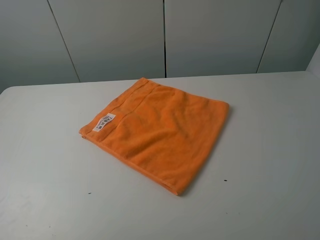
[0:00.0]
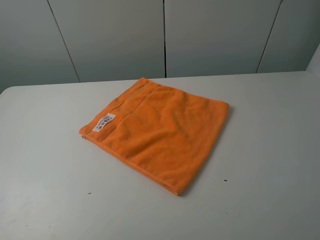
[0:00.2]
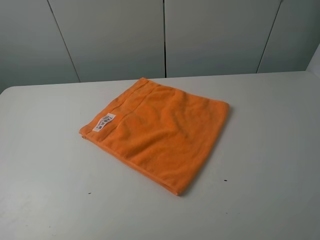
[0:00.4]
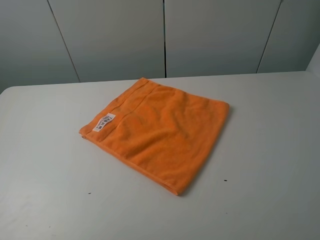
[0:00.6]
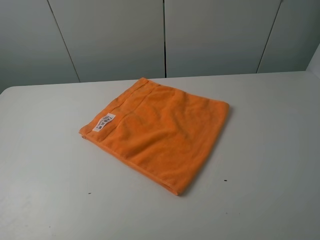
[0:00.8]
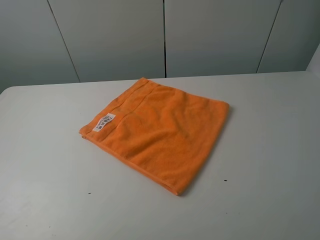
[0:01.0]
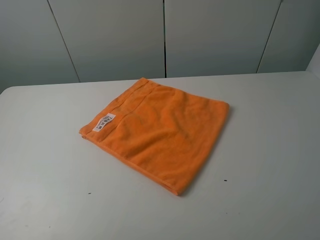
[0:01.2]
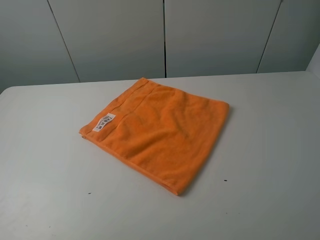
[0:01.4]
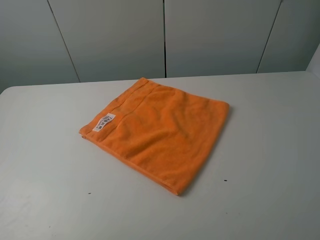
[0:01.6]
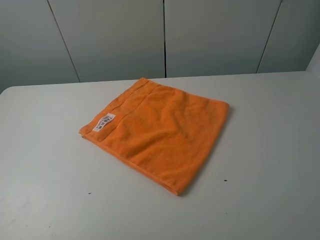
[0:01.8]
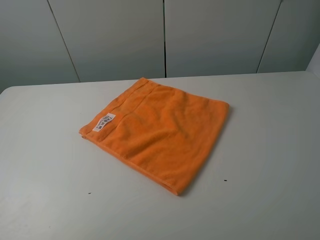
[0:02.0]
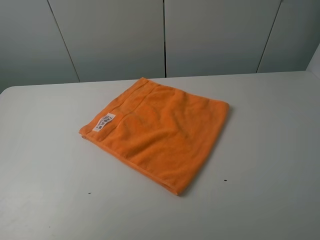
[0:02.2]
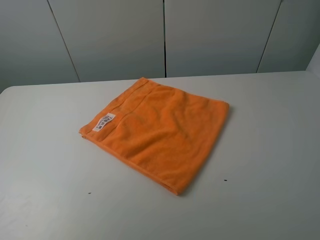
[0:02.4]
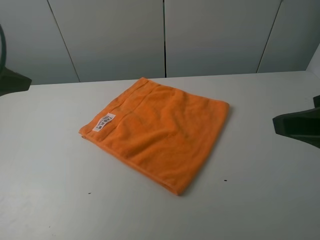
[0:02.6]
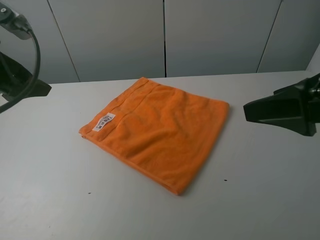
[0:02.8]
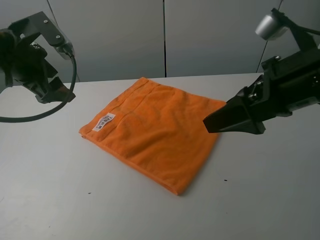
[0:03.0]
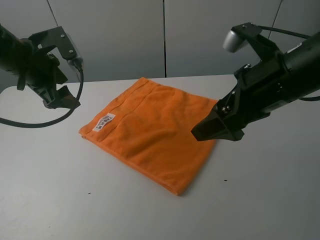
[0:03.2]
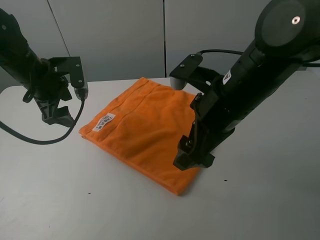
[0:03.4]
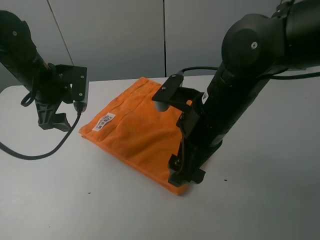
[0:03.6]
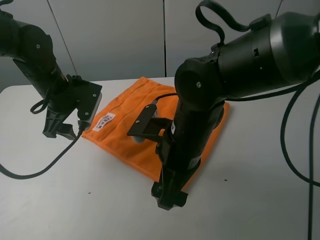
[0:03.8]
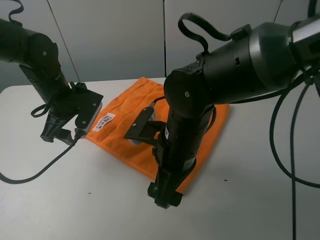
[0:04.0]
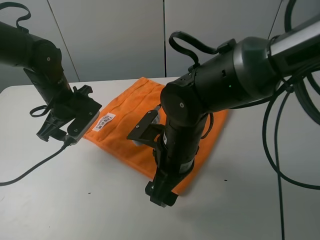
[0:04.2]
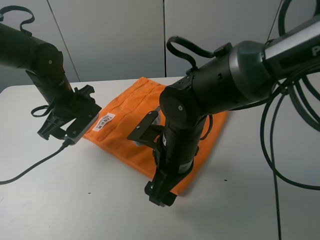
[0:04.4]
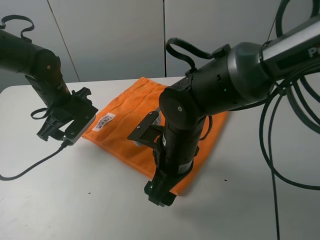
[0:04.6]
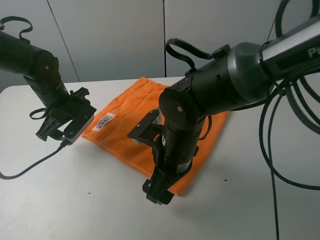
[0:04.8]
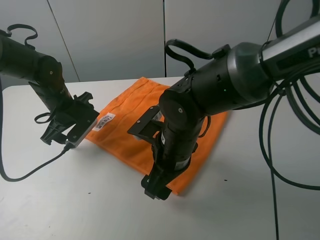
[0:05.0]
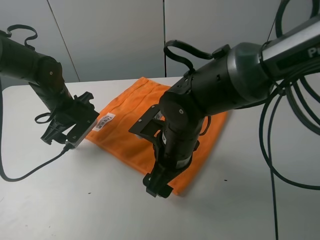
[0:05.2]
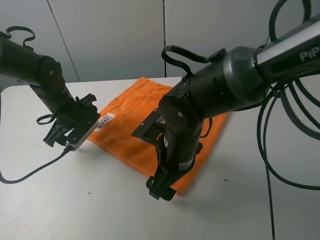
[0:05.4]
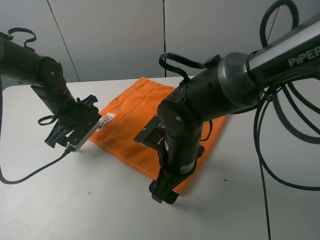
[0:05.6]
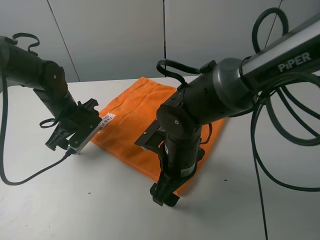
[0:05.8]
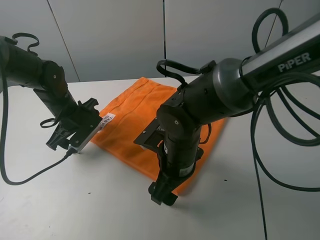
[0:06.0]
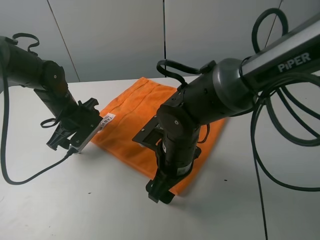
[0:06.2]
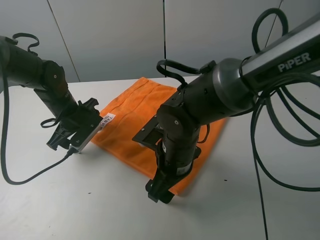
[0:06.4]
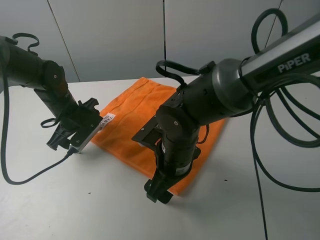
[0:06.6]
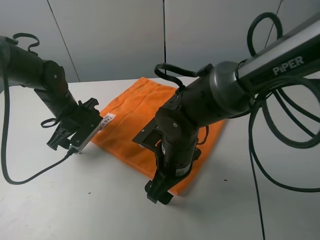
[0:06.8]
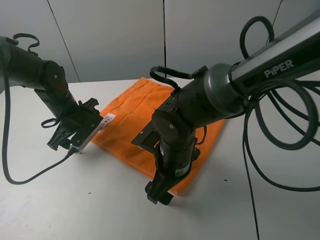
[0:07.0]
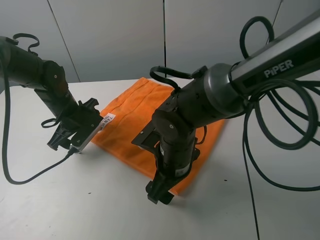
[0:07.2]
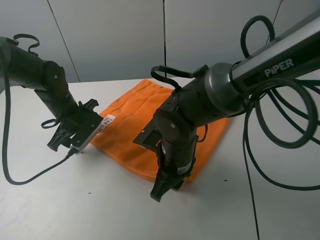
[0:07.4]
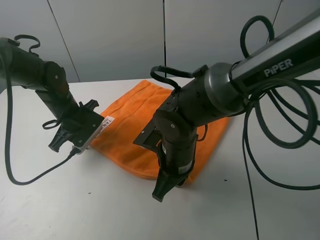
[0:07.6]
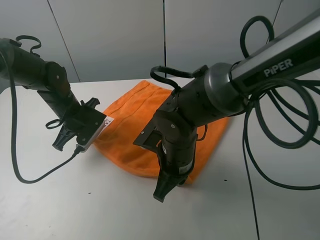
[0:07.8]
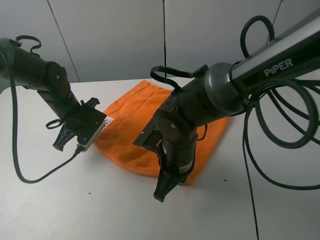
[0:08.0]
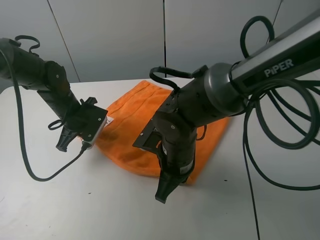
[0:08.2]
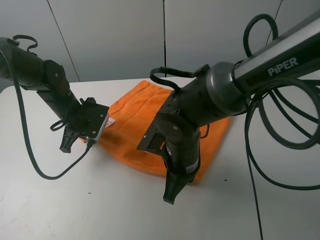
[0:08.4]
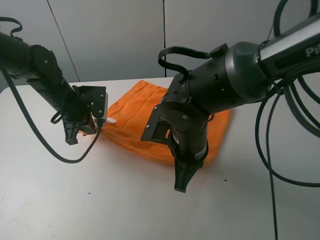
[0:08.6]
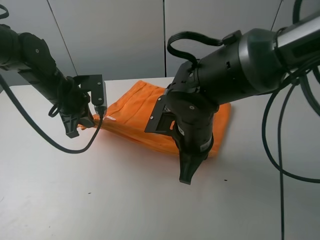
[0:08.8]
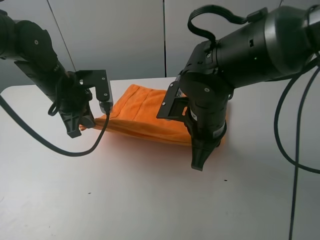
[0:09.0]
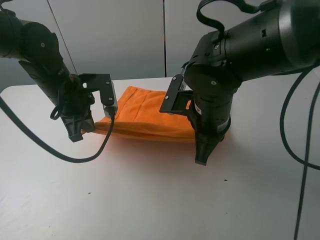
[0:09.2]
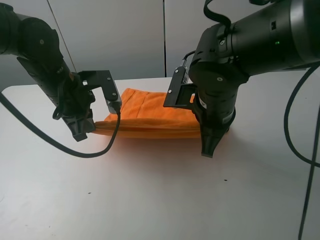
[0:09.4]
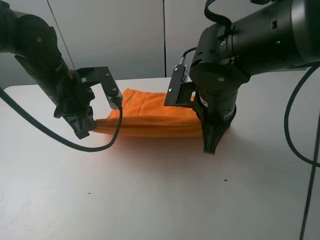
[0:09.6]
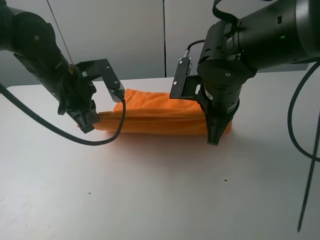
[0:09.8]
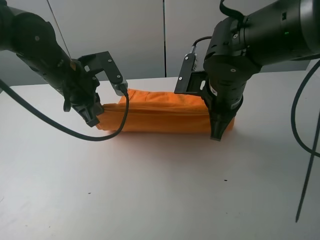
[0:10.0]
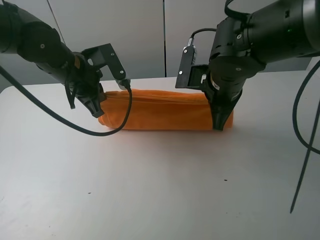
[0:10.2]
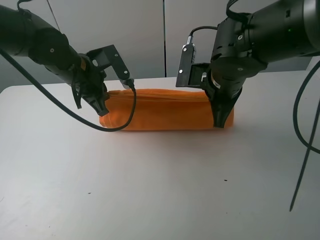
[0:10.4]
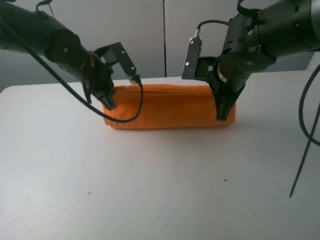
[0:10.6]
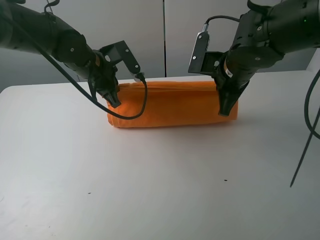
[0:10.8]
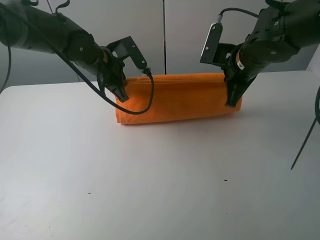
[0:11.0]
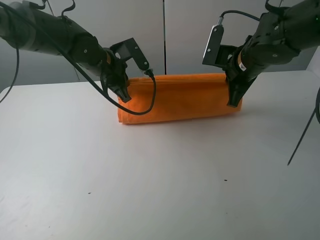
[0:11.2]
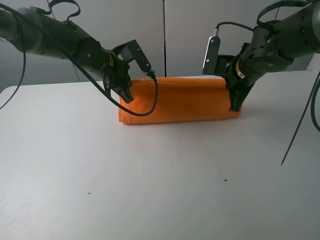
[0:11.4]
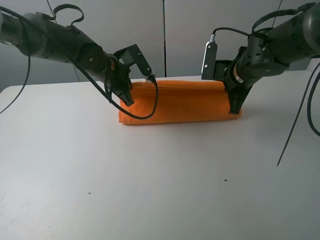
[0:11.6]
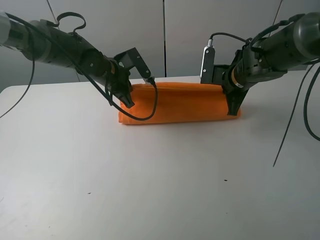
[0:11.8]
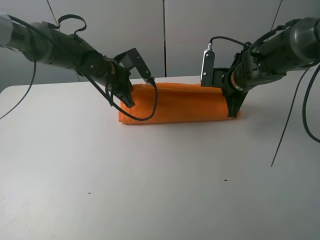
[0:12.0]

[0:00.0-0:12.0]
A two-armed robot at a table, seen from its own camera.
Task of the whole recording: fold the towels on the table.
Step, 0:00.0 to 0:08.8: Grasp the orange towel with the right gripper.
0:00.0 to 0:01.6: Neither gripper changes place.
0:01.6 to 0:03.0: The right gripper moves forward and to the left, approximately 25 cm. The left gripper goes some 30 cm forward.
0:03.0 to 0:04.4: The right gripper goes about 20 cm to the left and downward, while the left gripper is displaced downward by approximately 10 cm.
0:06.0 to 0:07.6: The left gripper closes its fingers. The right gripper closes its fingers.
0:07.6 to 0:09.0: Both grippers move upward, approximately 10 cm.
0:09.0 to 0:10.4: The right gripper heads forward, covering some 5 cm.
0:10.4 to 0:12.0: The left gripper shifts approximately 10 cm forward and downward. The right gripper shifts approximately 15 cm forward, to the right and downward.

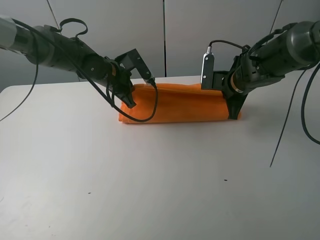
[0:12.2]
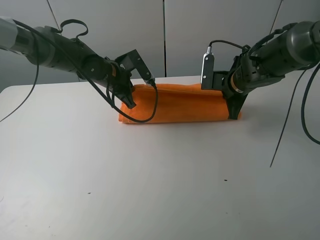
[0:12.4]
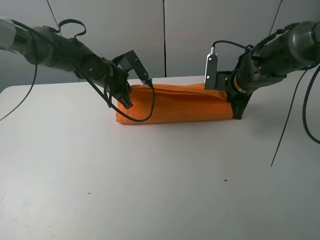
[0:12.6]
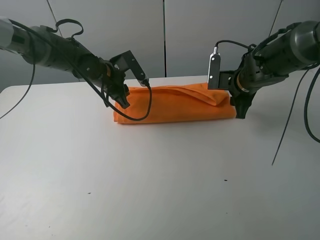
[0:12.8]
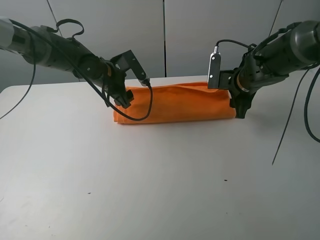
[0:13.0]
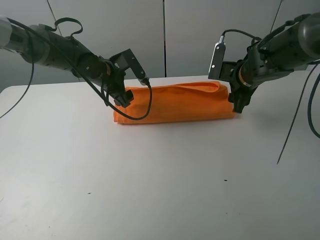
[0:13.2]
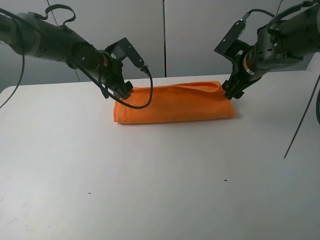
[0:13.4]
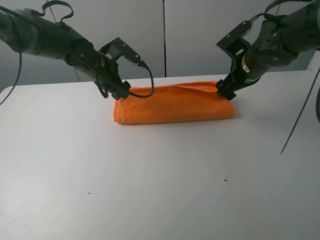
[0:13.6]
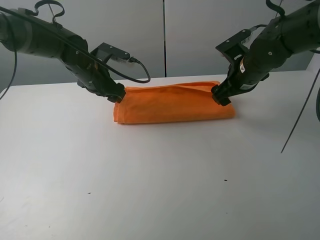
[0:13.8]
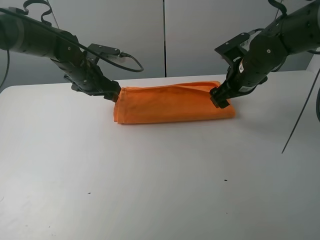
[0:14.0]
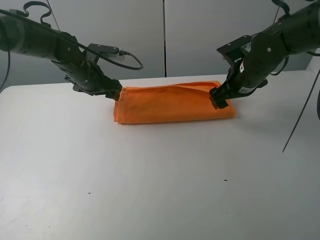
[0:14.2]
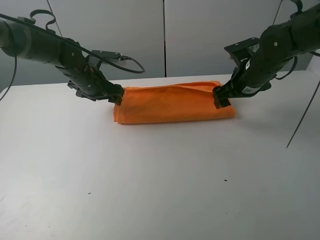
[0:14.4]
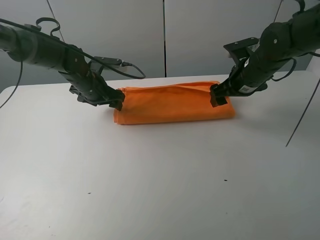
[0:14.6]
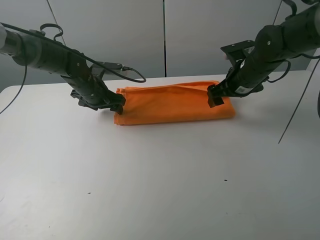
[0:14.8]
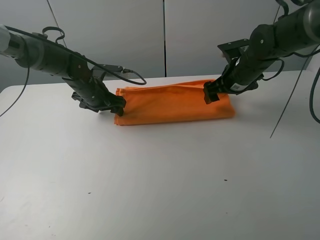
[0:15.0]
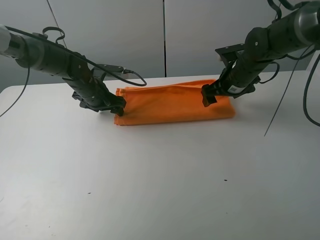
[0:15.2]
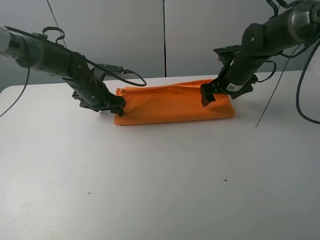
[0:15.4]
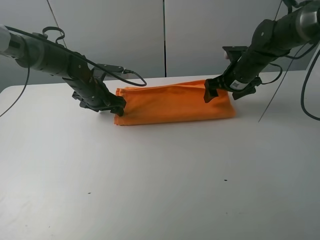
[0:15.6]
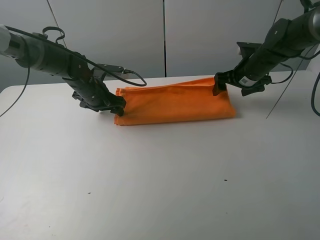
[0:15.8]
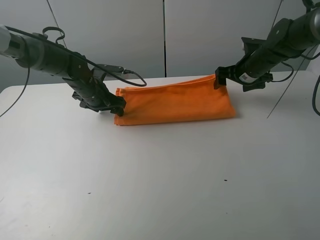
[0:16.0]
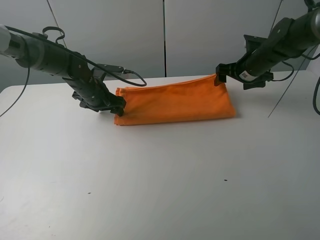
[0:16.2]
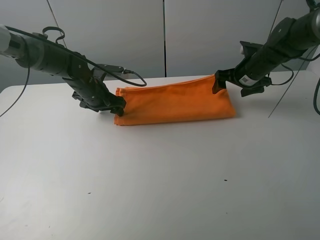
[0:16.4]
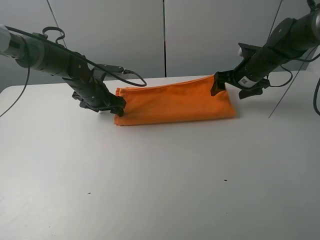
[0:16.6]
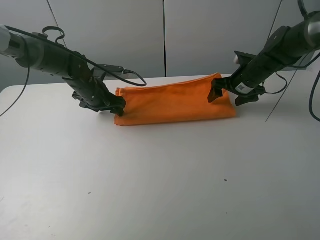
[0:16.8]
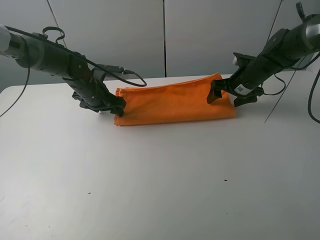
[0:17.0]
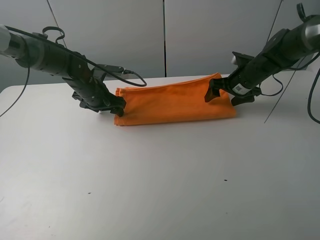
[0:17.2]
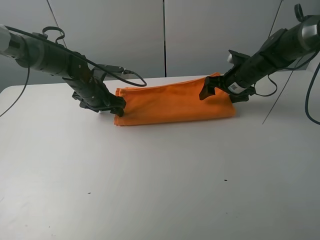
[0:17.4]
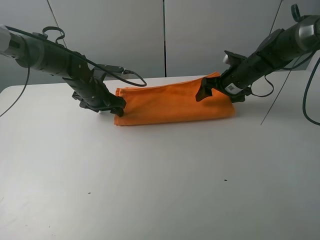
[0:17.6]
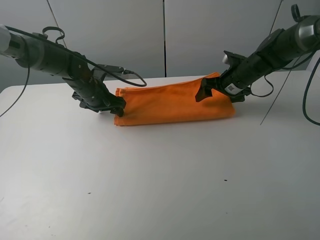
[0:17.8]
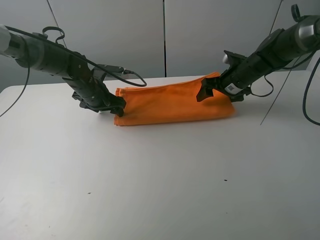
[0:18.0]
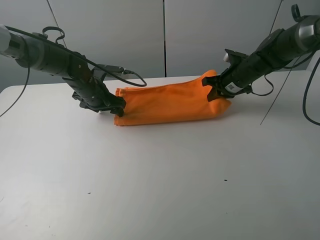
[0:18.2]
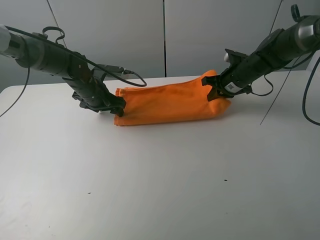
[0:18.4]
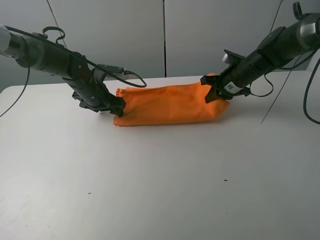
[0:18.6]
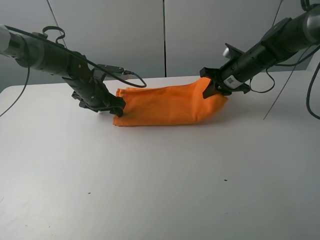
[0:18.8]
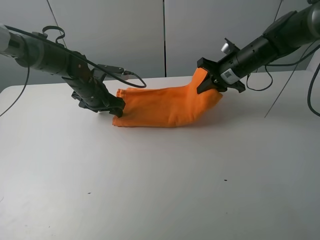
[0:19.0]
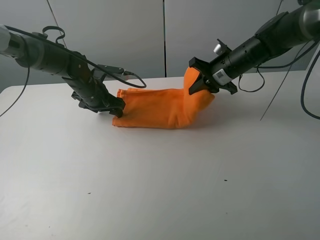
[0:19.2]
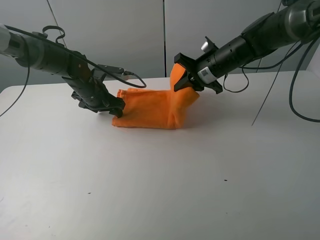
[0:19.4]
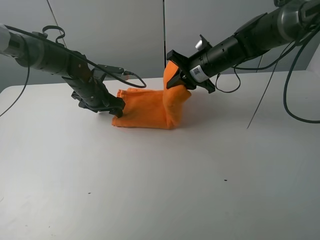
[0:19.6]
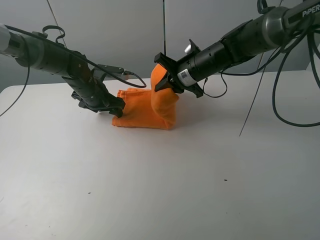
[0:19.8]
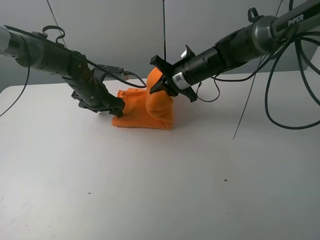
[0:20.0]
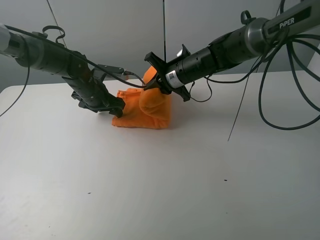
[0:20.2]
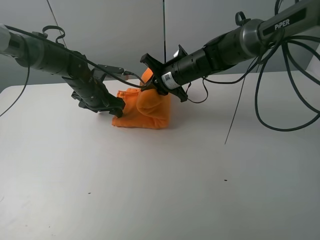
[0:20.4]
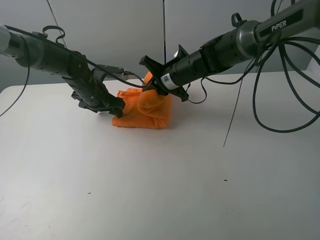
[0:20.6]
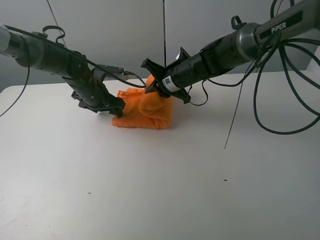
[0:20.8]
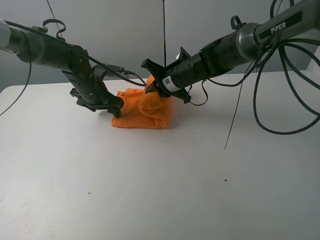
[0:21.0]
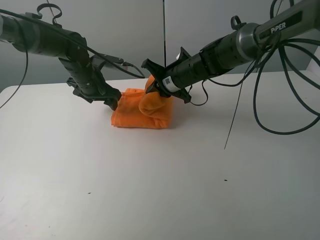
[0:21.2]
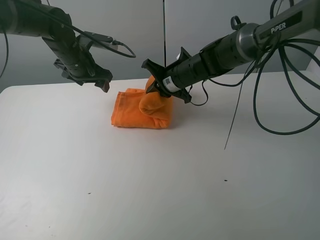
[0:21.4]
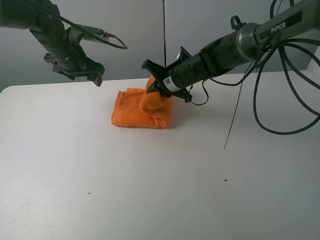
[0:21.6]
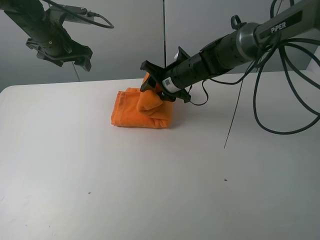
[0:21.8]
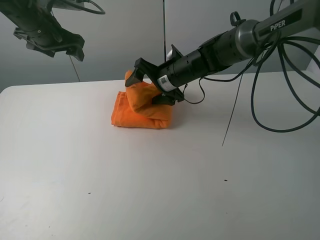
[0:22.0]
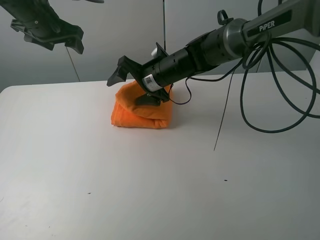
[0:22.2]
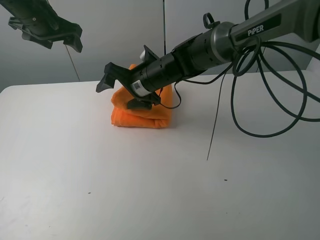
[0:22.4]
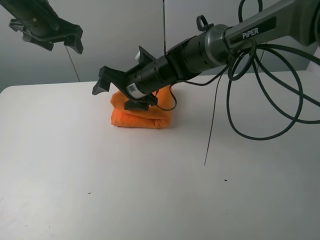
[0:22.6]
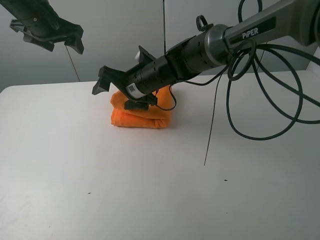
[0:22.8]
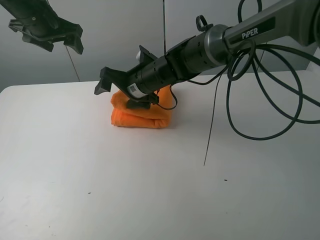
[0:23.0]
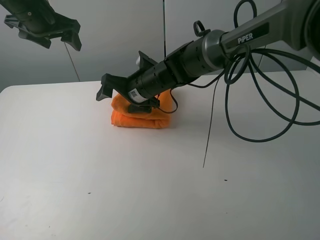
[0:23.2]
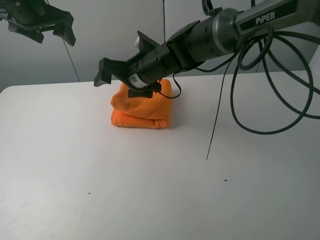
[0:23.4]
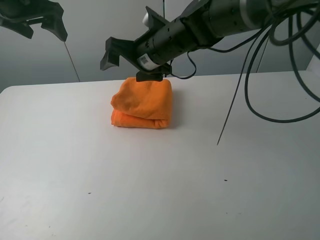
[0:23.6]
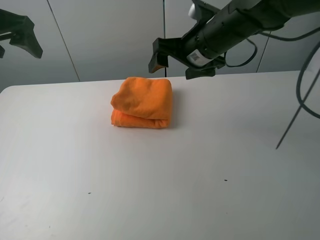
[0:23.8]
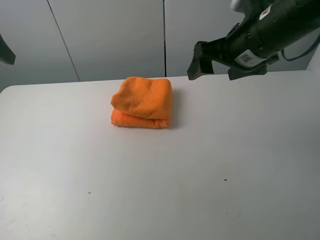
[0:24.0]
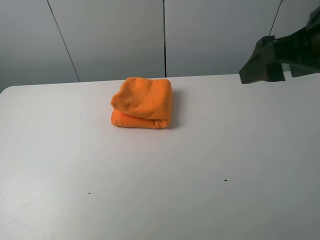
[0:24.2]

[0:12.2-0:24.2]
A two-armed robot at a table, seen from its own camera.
Task of the whole recording: fold the towels on the table.
Step, 0:13.8 to 0:17.4: Press on the orange towel with the left gripper.
Step, 0:17.6 to 0:24.0: Fold the orange towel from right to left with right gripper.
0:12.2 to 0:13.8: The right gripper opens. The left gripper opens.
0:13.8 to 0:15.2: The left gripper moves downward, roughly 5 cm.
0:15.2 to 0:16.6: The right gripper changes place by roughly 5 cm.
0:16.6 to 0:18.2: The right gripper closes its fingers.
0:18.2 to 0:19.8: The right gripper goes about 10 cm to the left.
0:19.8 to 0:21.2: The left gripper shifts by about 5 cm.
0:21.2 to 0:22.6: The right gripper shifts some 10 cm to the left, and opens its fingers. The left gripper travels upward and to the left by some 15 cm.
0:22.6 to 0:24.2: The left gripper goes approximately 25 cm backward, while the right gripper goes about 35 cm to the right, backward and upward.
